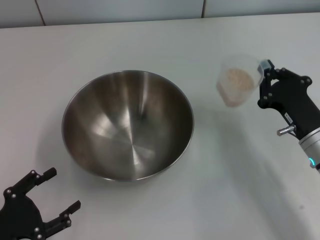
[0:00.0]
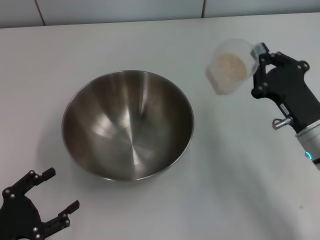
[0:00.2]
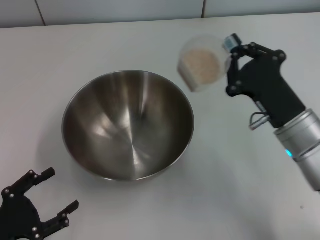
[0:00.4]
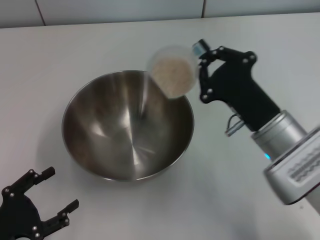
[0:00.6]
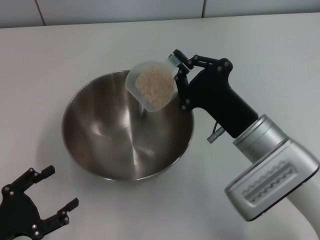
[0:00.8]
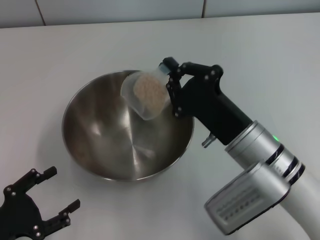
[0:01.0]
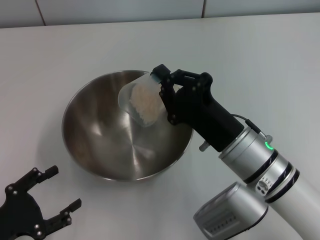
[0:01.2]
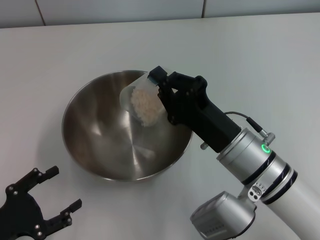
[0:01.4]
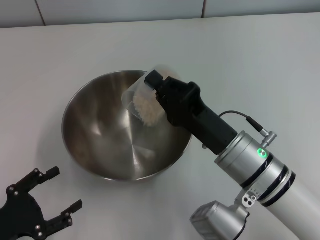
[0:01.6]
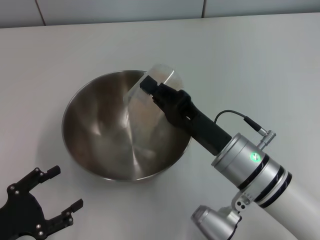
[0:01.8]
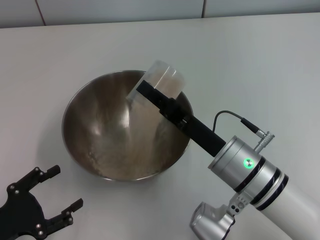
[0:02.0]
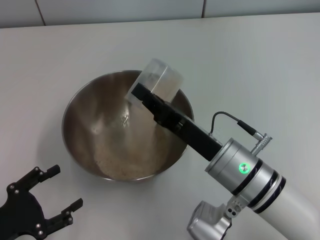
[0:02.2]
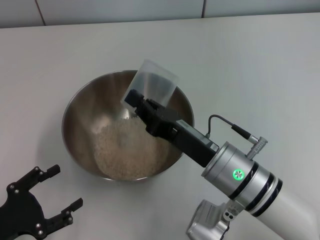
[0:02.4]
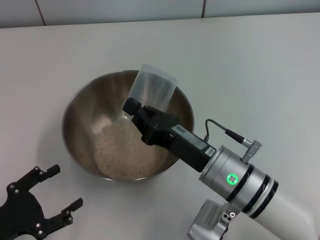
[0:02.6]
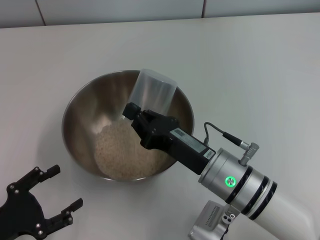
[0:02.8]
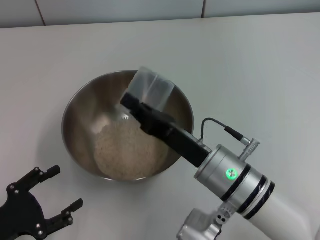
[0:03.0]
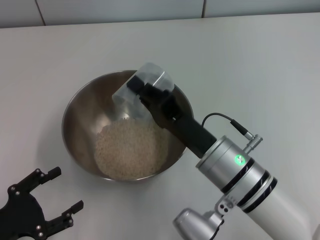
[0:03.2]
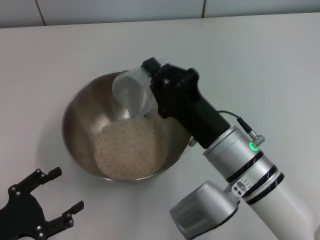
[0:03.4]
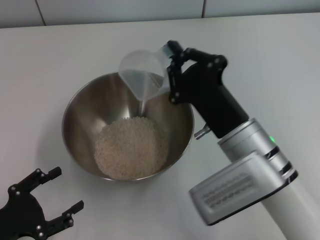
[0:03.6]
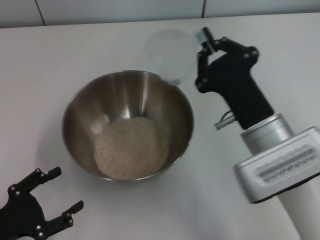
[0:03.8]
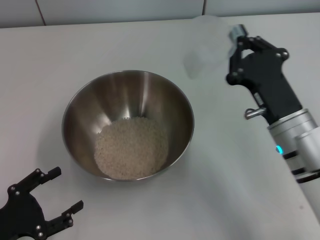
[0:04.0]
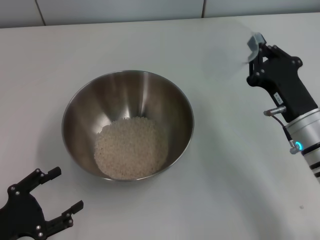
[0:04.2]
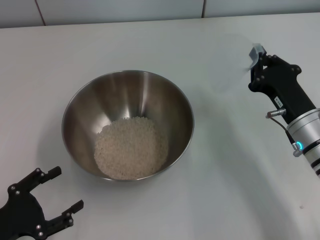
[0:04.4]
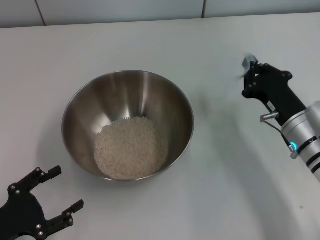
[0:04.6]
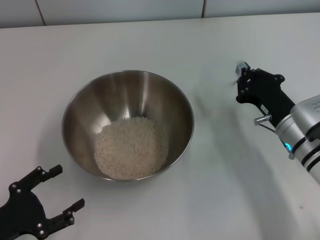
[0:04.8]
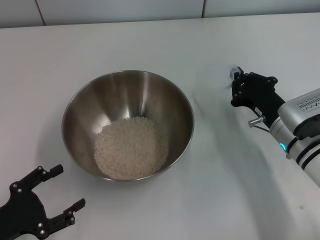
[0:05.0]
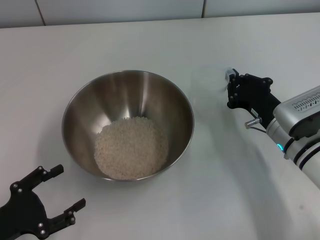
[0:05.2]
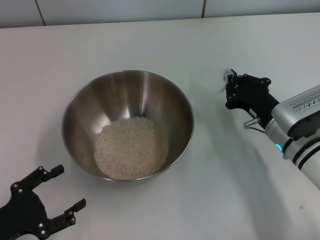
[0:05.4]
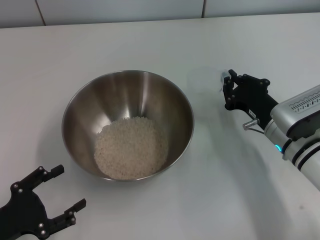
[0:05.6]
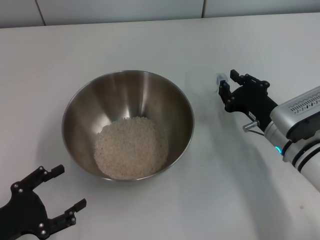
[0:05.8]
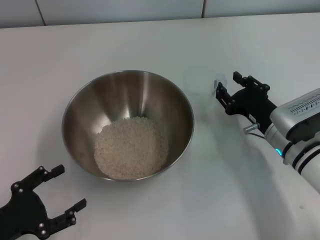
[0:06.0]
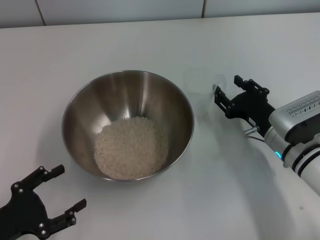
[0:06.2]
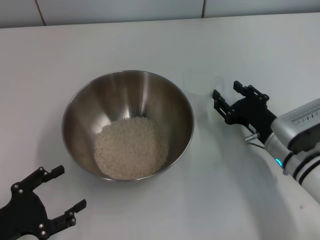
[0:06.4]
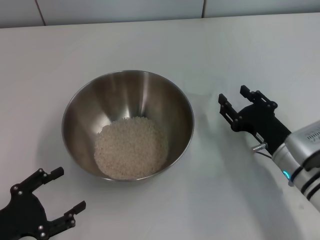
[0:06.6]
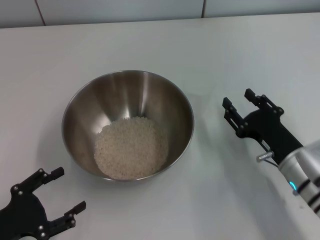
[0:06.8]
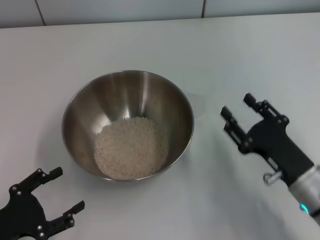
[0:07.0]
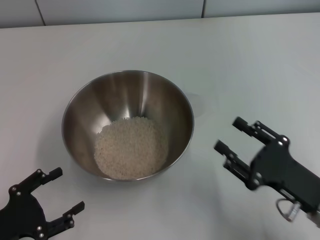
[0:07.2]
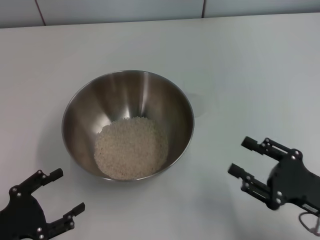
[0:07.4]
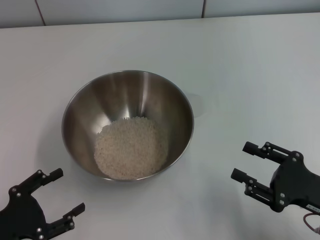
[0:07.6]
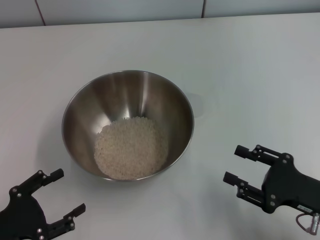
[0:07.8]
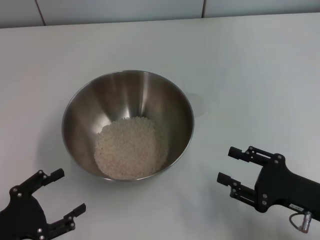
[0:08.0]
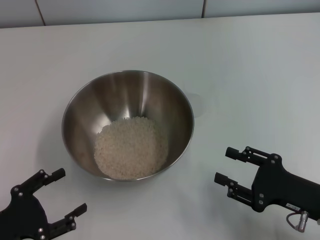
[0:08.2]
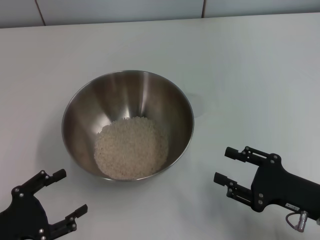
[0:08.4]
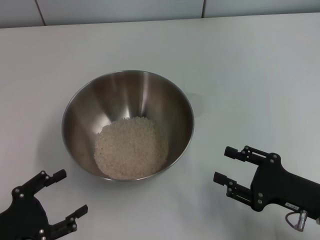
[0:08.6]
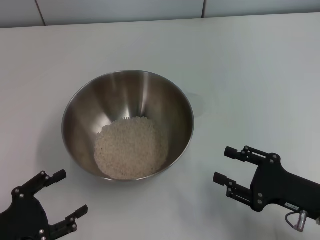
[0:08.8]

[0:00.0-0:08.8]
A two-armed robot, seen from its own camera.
Task of the whole recording: Place the bowl in the middle of the table with one hand and pour the rice from the grain cup into it with the other hand.
Step, 0:00.2 to 0:03.8: Pour the rice from the cup into the bowl with the right gripper.
Step, 0:04.2 to 0:07.0: Place the cup on the table with the right gripper.
0:00.0 to 0:01.4: The right gripper moves to the left, approximately 10 cm.
0:03.0 to 0:04.4: The right gripper shifts about 15 cm to the right and forward.
0:04.4 to 0:05.8: The grippers make only small movements.
0:05.8 to 0:07.4: The right gripper shifts about 15 cm backward and to the right, and opens its fingers.
0:07.4 to 0:08.8: The grippers move only a little.
